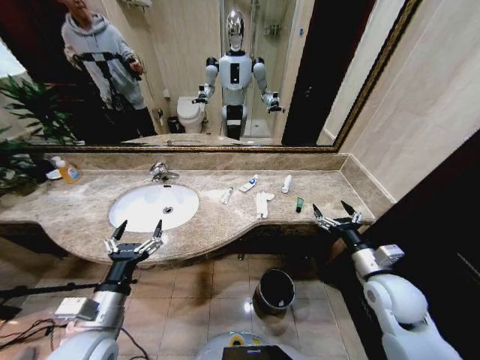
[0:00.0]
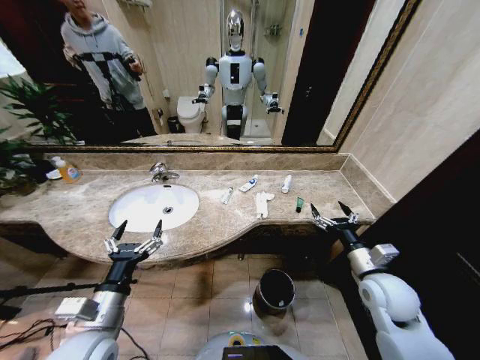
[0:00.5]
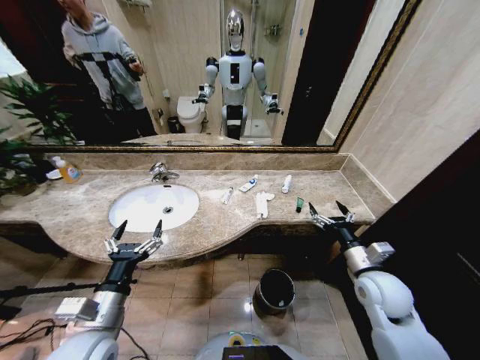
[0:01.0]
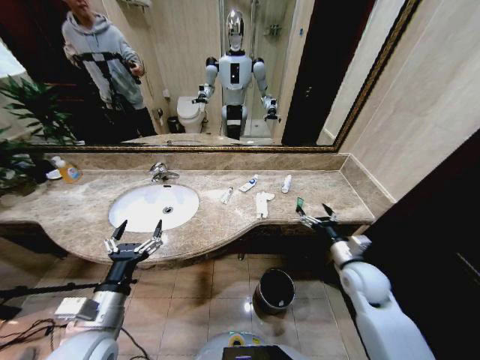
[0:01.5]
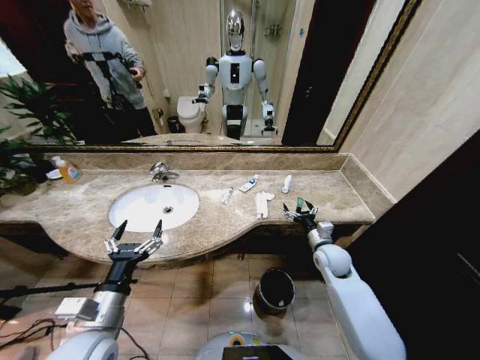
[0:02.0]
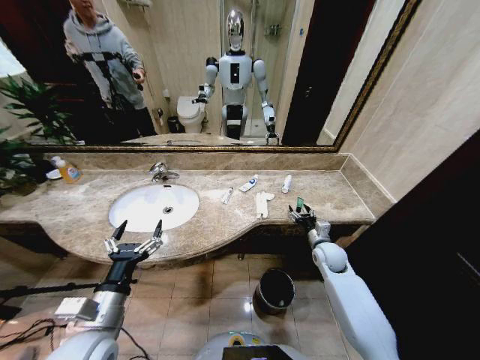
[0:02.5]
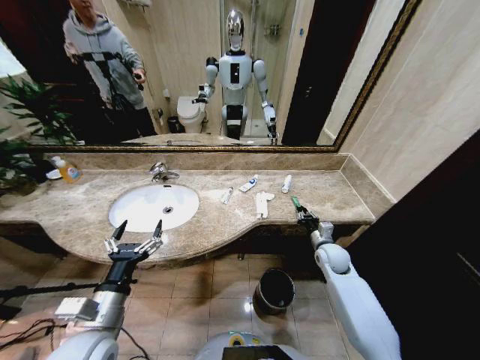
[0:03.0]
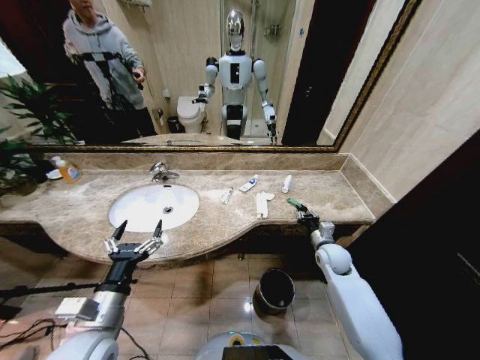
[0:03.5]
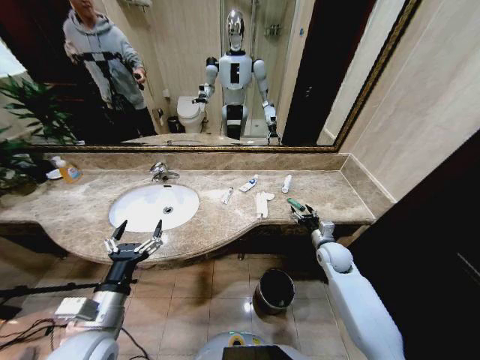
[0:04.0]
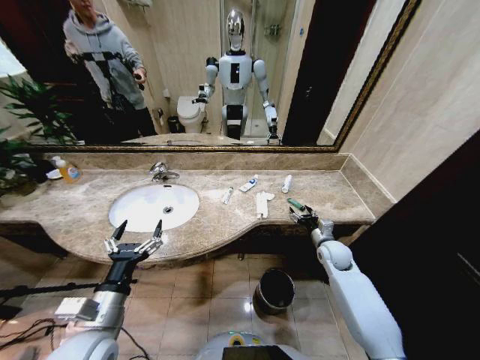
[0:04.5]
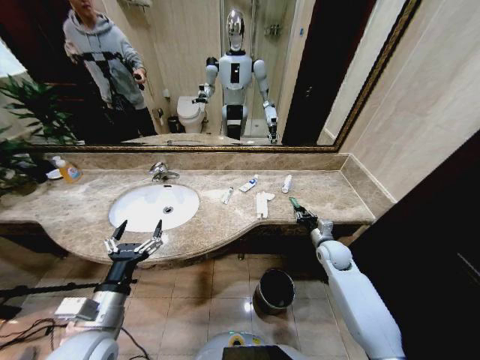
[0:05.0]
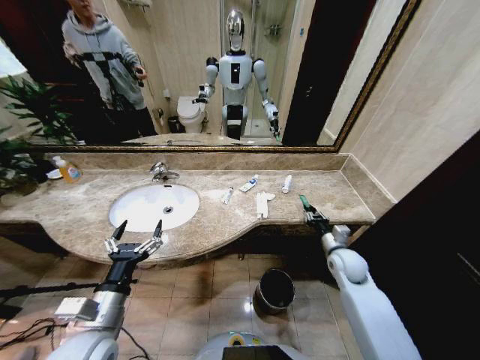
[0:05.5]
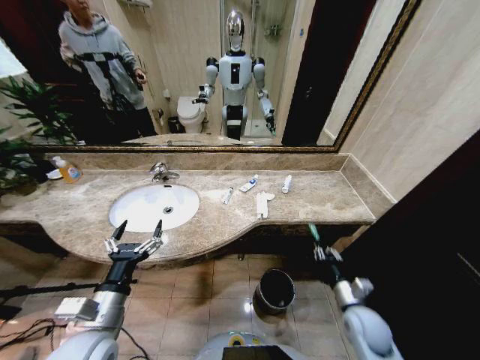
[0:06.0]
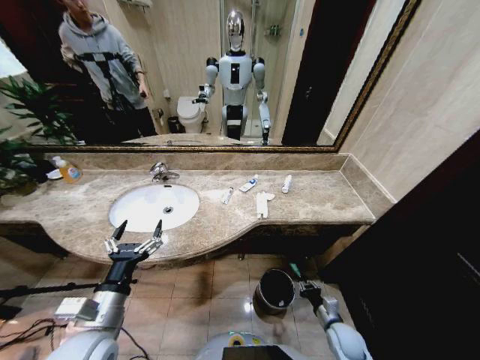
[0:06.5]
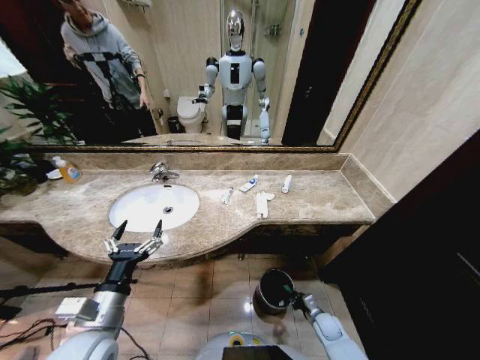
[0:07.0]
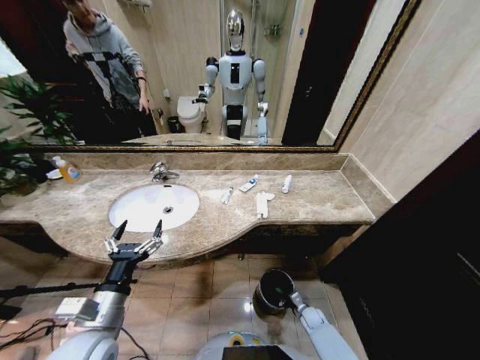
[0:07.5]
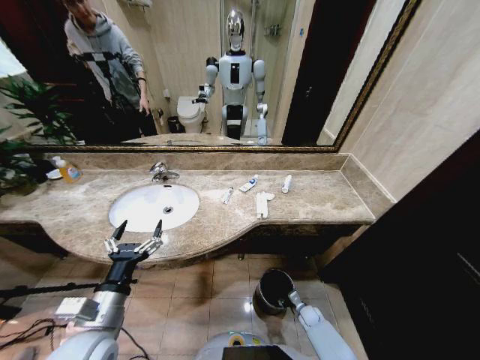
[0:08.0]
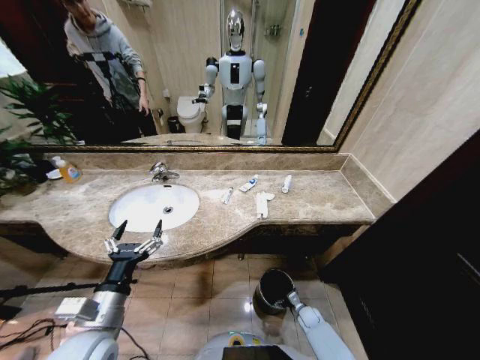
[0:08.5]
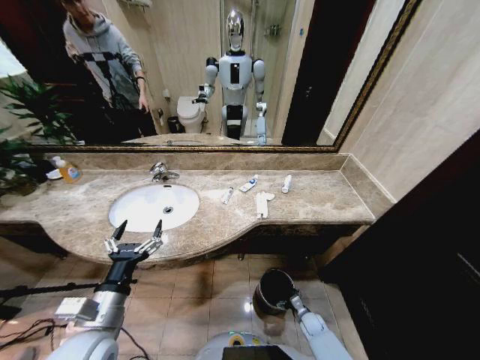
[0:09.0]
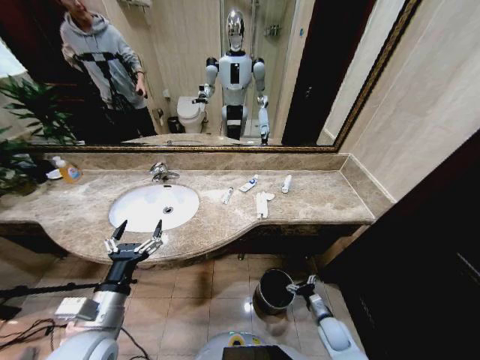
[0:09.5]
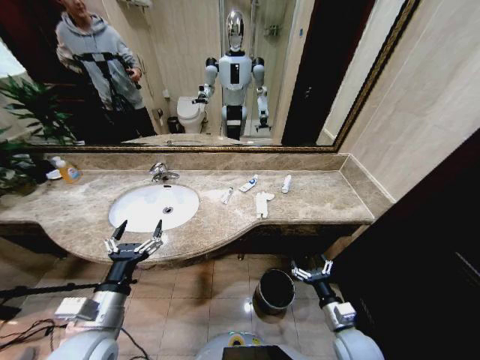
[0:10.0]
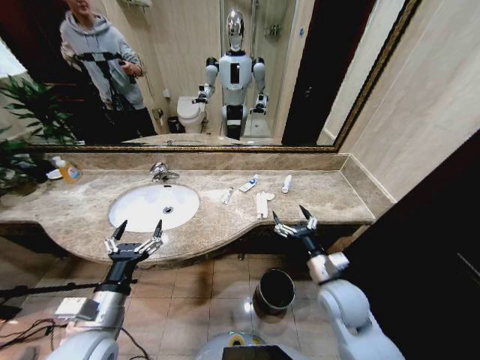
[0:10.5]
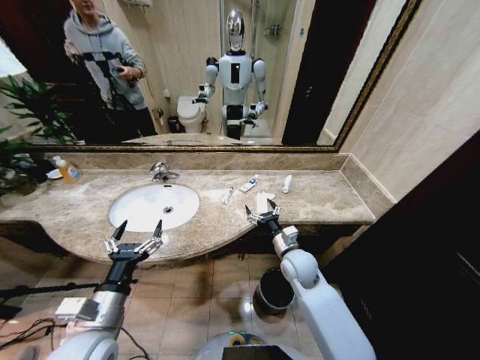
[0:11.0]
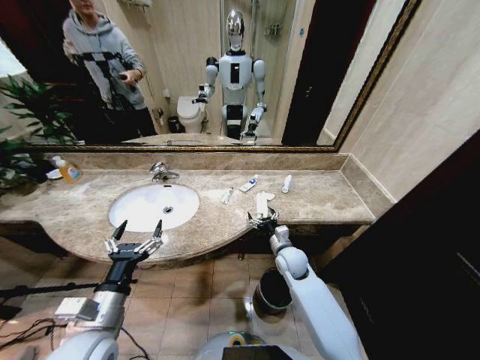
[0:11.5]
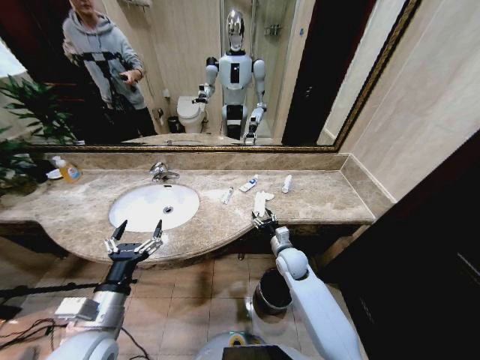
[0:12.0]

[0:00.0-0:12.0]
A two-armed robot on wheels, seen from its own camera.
Task of the whole recording: Pick up the trash from the sink and place it in the trash bin.
2.0 to 4.0 s: The right gripper closes, then opens again.
4.0 to 6.0 s: The right gripper moves backward, approximately 20 cm, and closes up.
6.0 to 8.0 s: The right gripper is displaced downward by about 30 cm.
8.0 to 10.0 s: The right gripper travels upward and backward by about 30 cm, and opens its fingers.
10.0 to 12.0 s: The right gripper shifts about 25 cm forward and to the left.

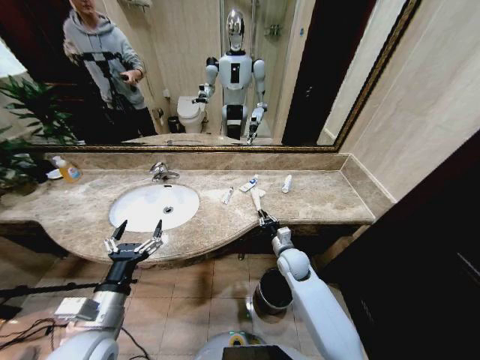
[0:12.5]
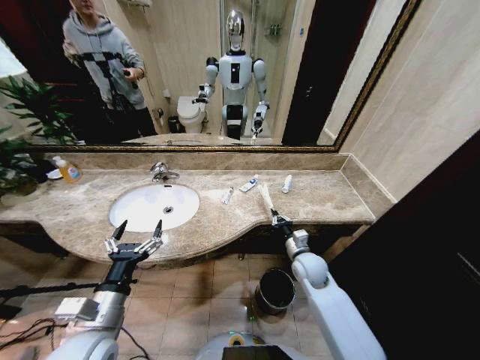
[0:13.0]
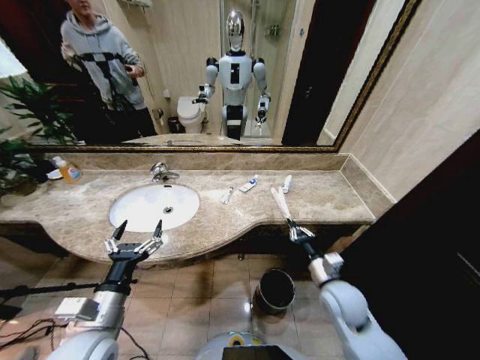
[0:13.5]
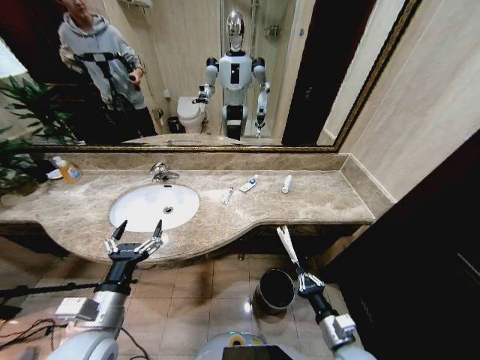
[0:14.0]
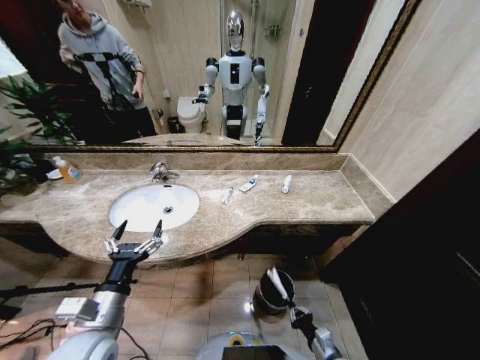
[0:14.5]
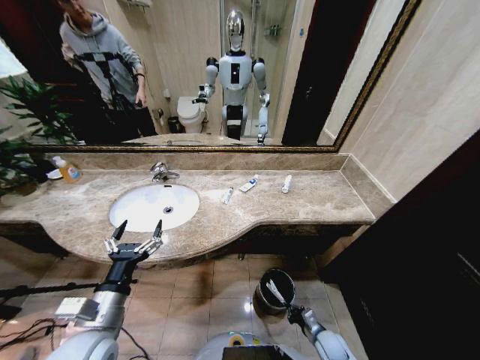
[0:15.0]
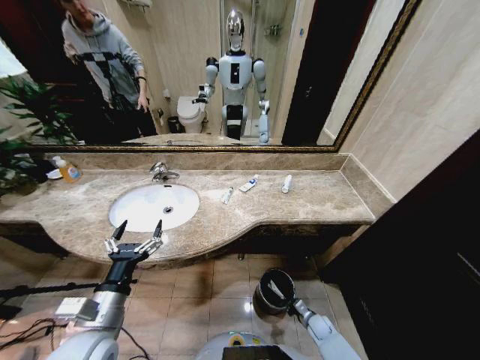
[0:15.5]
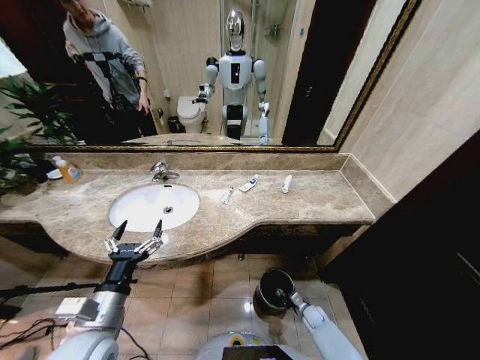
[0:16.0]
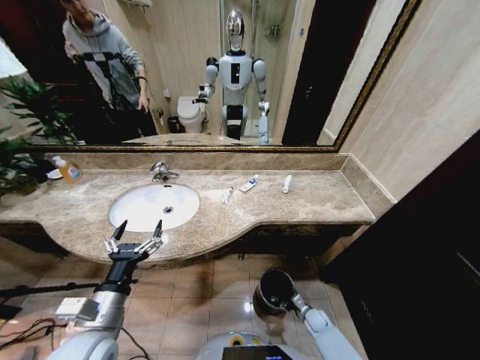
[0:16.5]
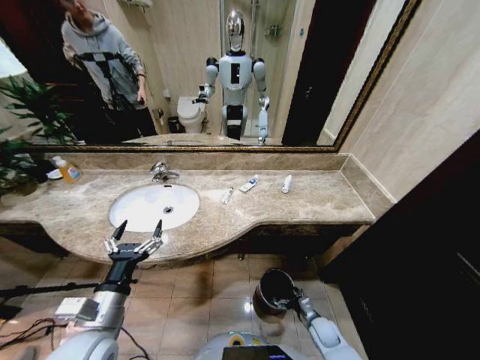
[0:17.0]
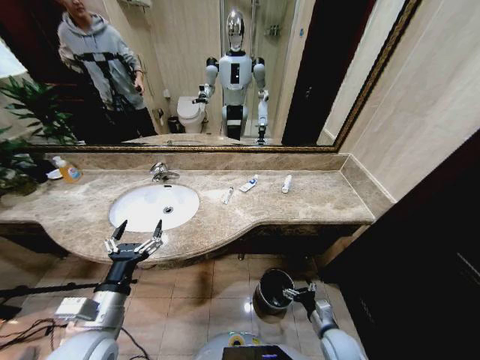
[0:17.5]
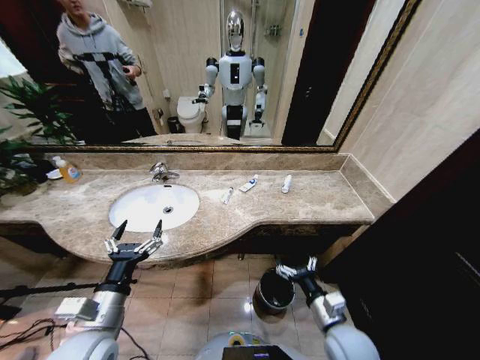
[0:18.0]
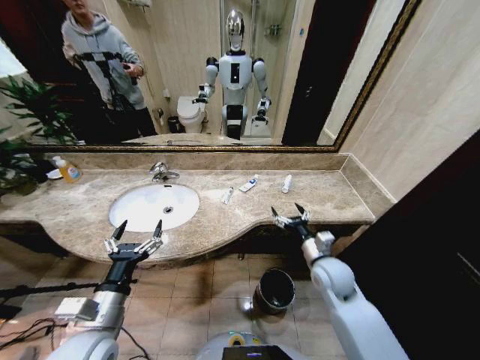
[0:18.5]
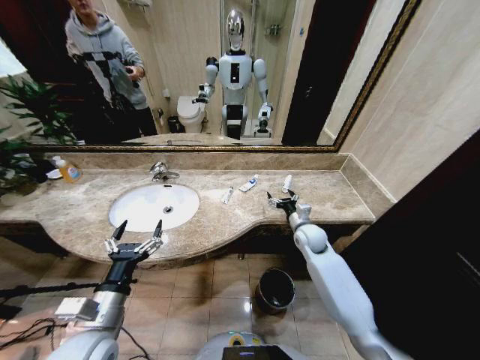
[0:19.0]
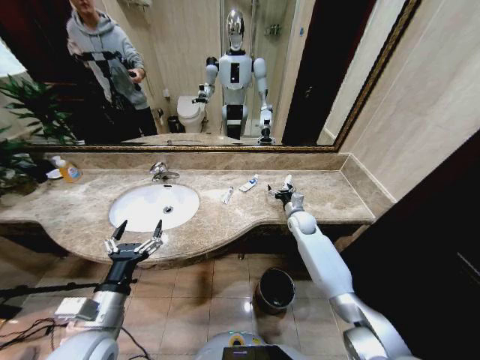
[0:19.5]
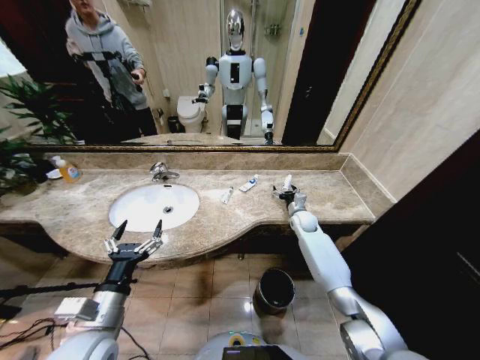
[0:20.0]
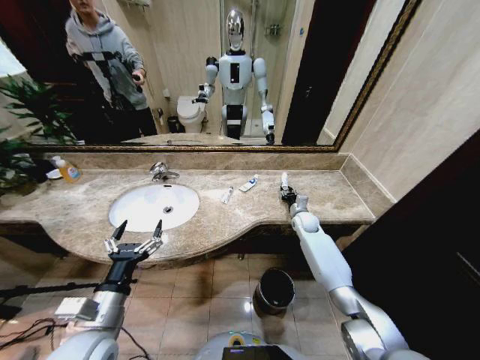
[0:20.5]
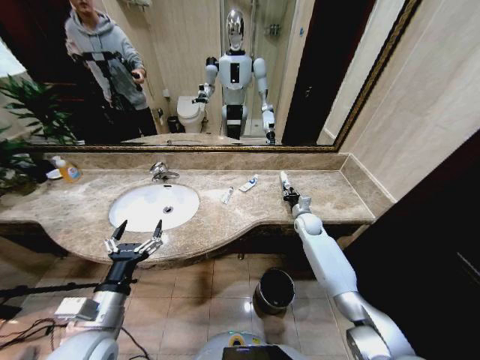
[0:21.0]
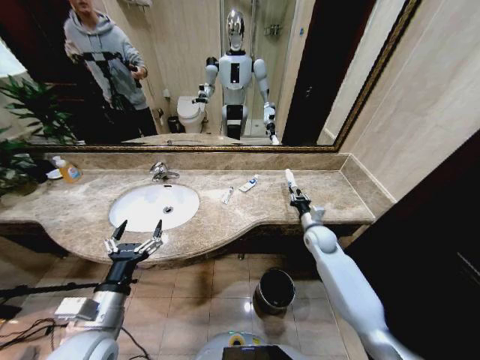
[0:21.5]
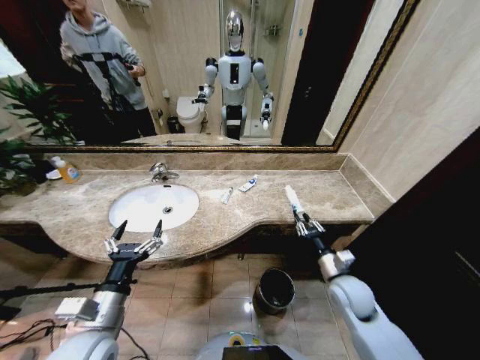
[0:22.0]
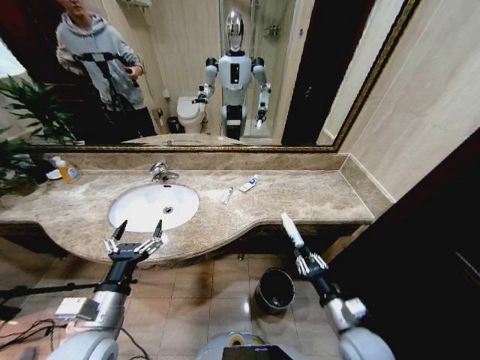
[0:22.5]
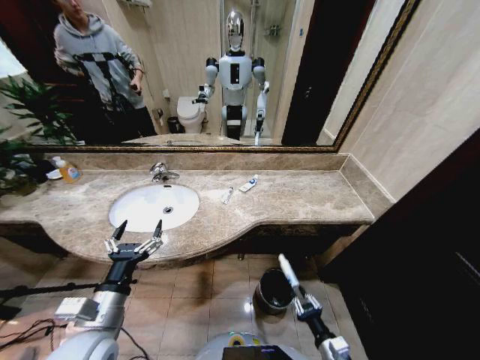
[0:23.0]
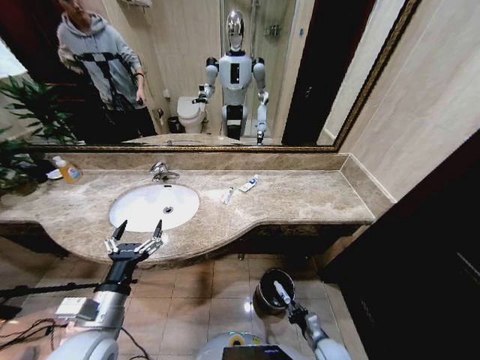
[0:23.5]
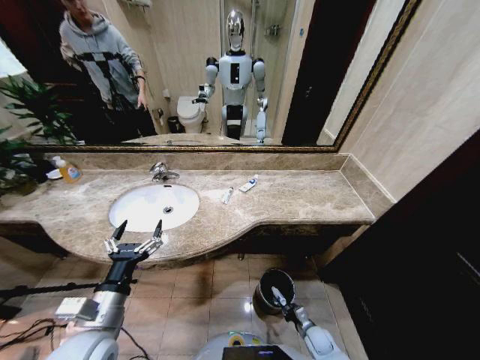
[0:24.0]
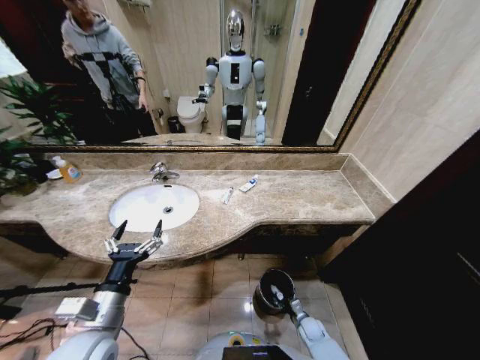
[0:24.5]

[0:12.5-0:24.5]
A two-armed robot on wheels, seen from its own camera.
Task of the whole recording: Pick up the trash from the sink and place it in the trash bin.
12.5 to 14.5 s: The right gripper shifts some 30 cm backward and downward.
14.5 to 16.5 s: The right gripper heads forward and downward, covering roughly 20 cm, and opens up.
16.5 to 18.5 s: The right gripper travels upward by about 35 cm.
18.5 to 20.5 s: The right gripper heads forward, covering about 20 cm, and closes.
20.5 to 22.5 s: The right gripper goes about 40 cm backward.
22.5 to 24.5 s: The right gripper is displaced downward by approximately 30 cm.

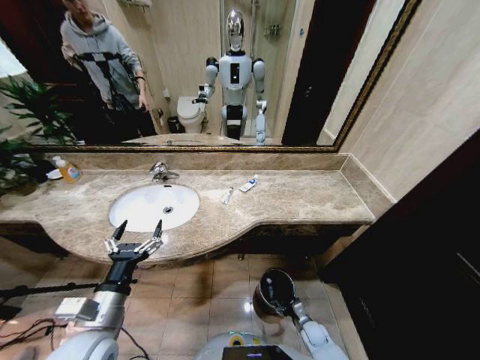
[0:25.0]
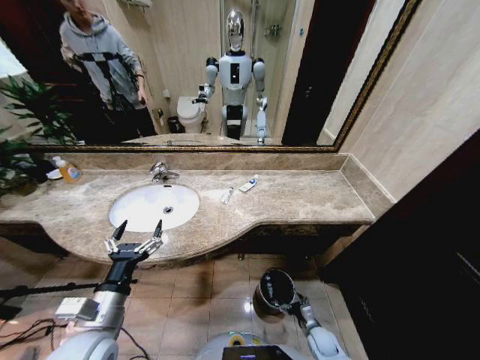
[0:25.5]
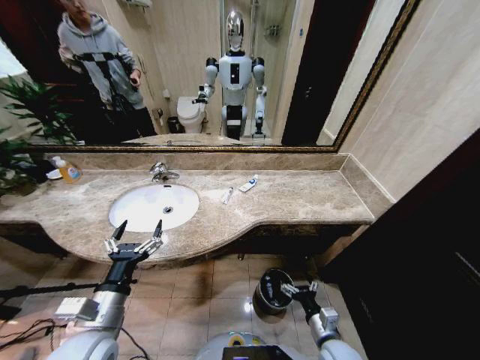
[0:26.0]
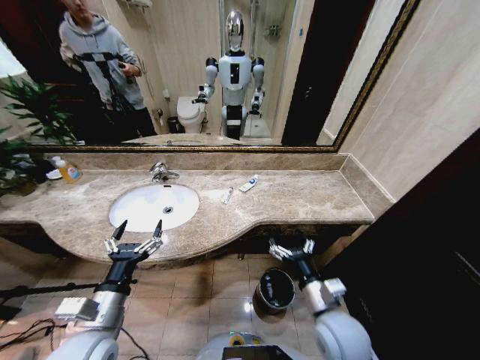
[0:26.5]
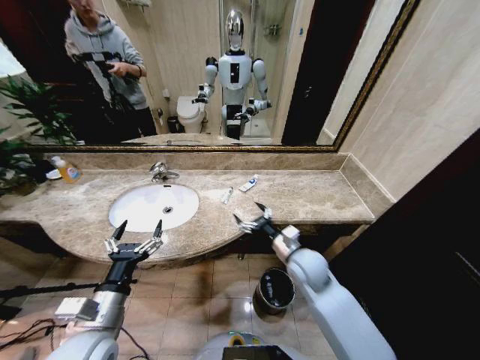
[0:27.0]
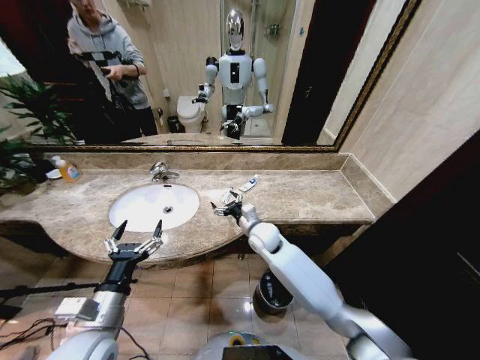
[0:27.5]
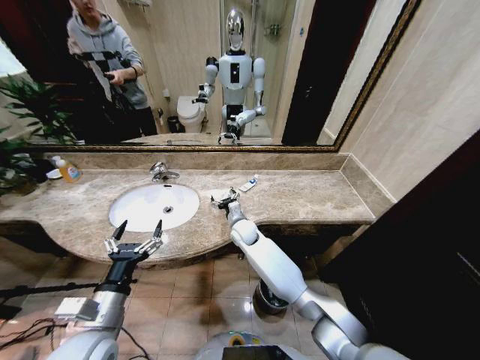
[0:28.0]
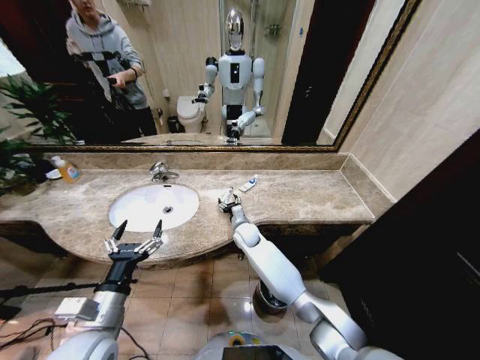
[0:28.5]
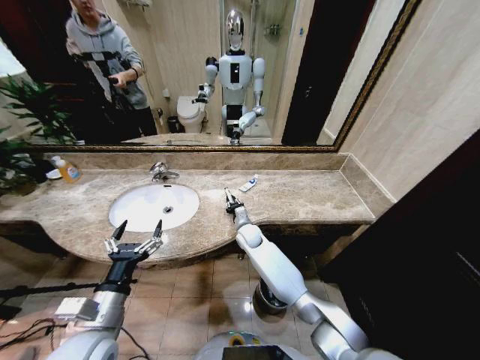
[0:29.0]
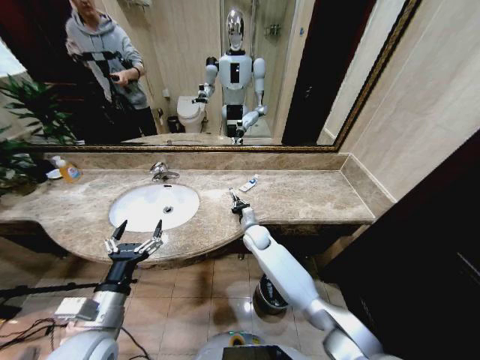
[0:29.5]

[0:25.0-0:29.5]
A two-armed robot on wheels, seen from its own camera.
Task of the whole recording: Pick up the trash from the sink and place it in the trash bin.
25.0 to 27.0 s: The right gripper shifts roughly 35 cm upward.
27.0 to 29.5 s: The right gripper moves forward, to the left and downward, approximately 20 cm, and closes its fingers.
